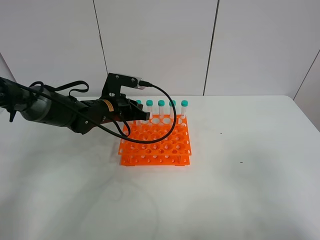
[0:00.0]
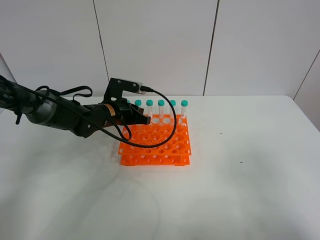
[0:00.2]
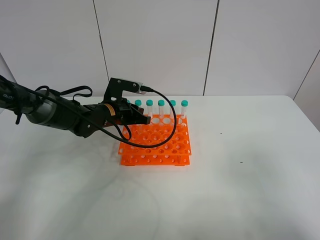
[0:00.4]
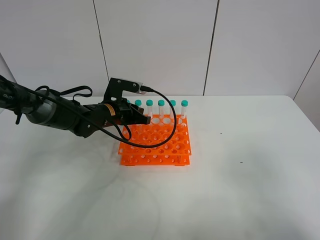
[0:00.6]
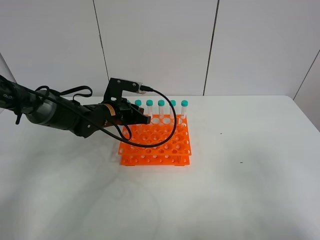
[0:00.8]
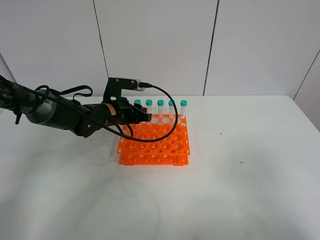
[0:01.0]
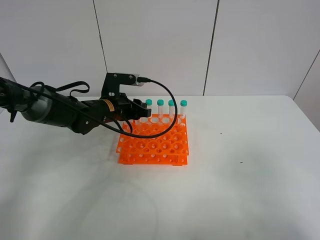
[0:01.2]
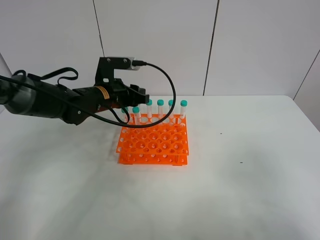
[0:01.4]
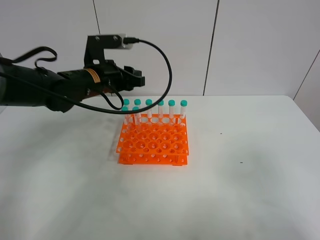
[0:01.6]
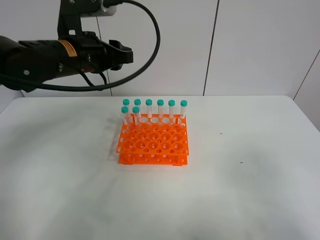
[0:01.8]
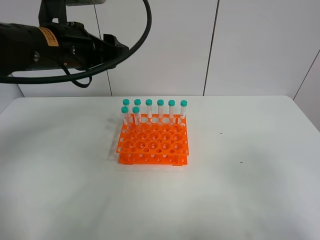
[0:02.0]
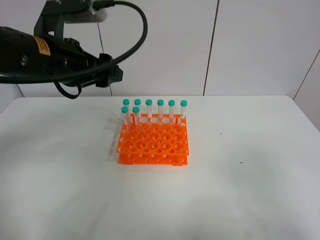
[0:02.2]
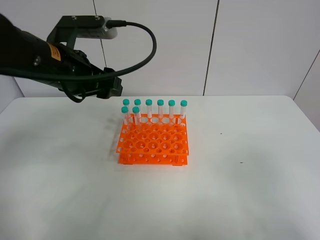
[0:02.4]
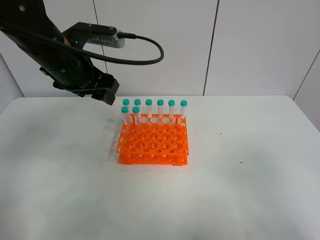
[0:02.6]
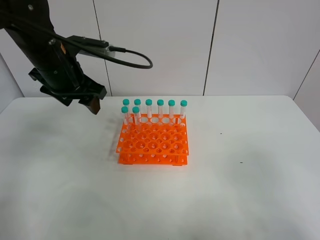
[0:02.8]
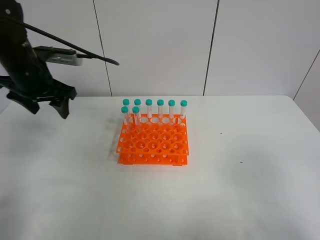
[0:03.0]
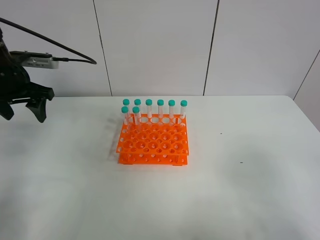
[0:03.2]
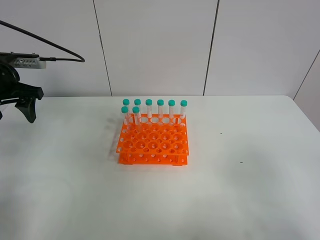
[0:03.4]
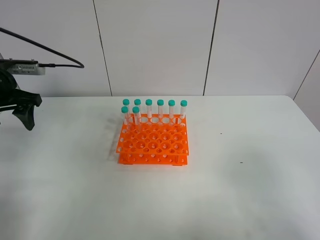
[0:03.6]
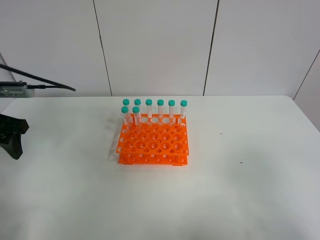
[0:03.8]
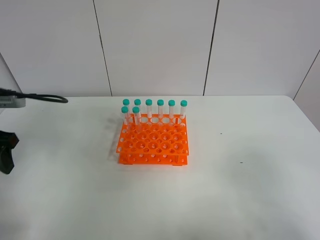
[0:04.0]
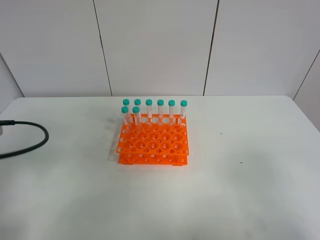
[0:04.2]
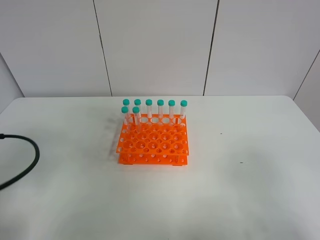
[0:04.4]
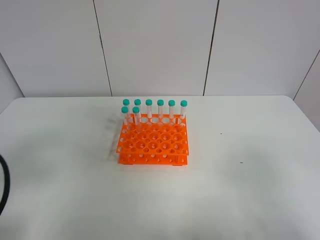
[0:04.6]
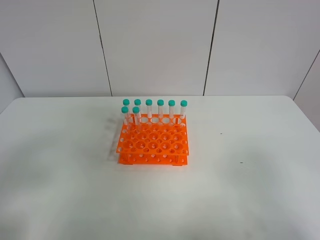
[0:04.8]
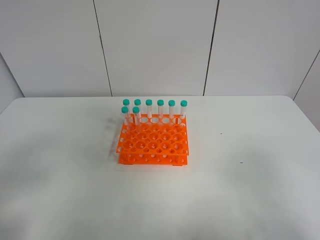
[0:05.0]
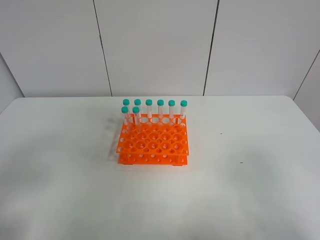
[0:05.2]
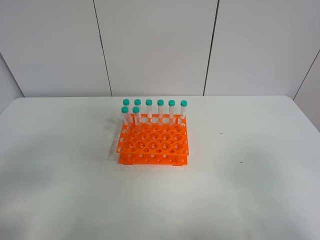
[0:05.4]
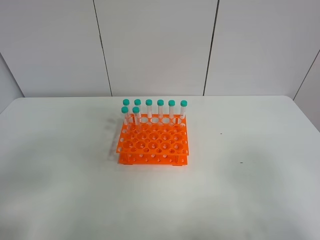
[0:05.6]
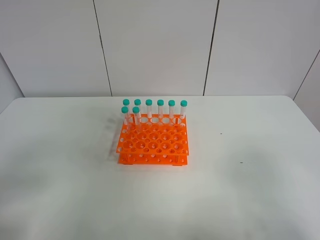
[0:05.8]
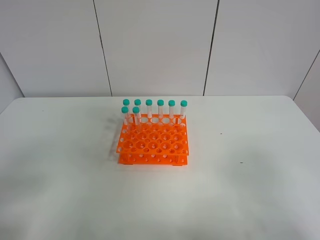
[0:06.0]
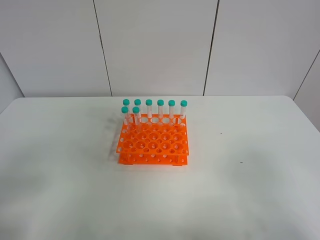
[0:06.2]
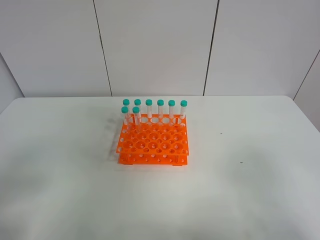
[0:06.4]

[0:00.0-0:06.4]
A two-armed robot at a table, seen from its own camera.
Task of the whole recording: Put the test tube on the table back onto the test tube rack.
0:00.0 to 0:01.6: The left gripper is displaced upward by approximately 10 cm, and opens its fingers.
0:01.6 to 0:03.2: The left gripper heads to the left, covering some 15 cm, and opens up.
0:03.2 to 0:04.8: The left gripper goes approximately 30 cm backward.

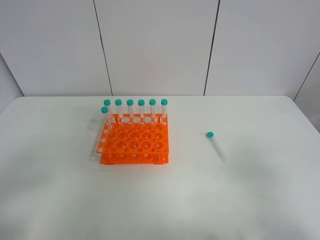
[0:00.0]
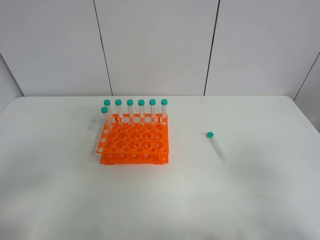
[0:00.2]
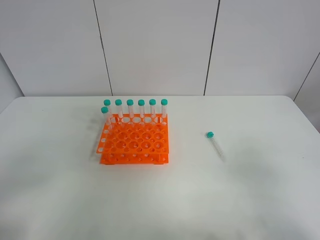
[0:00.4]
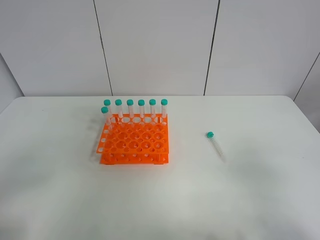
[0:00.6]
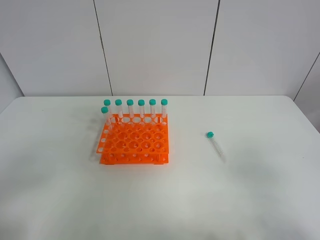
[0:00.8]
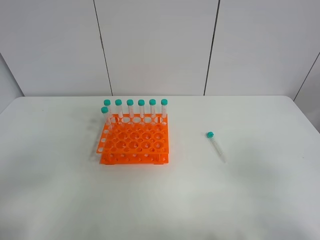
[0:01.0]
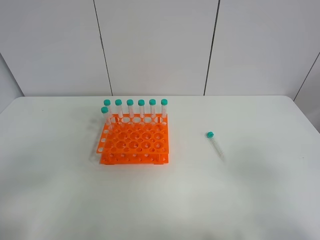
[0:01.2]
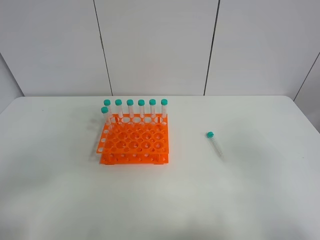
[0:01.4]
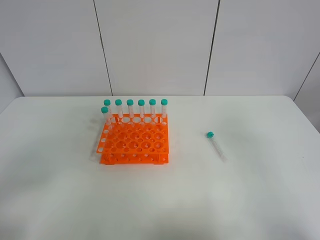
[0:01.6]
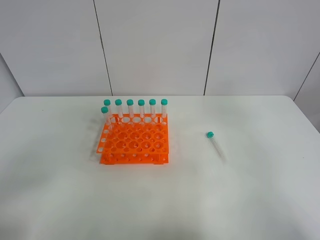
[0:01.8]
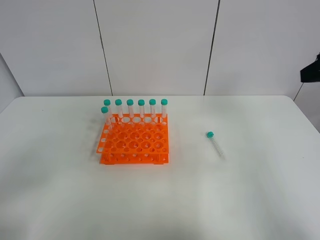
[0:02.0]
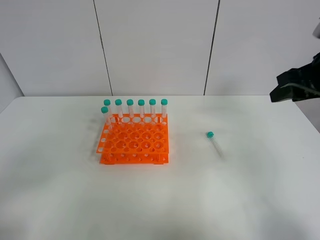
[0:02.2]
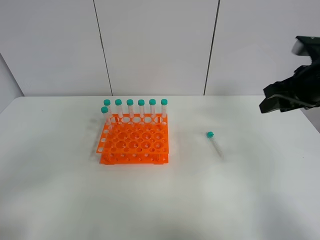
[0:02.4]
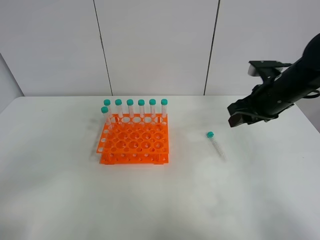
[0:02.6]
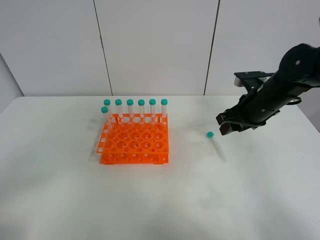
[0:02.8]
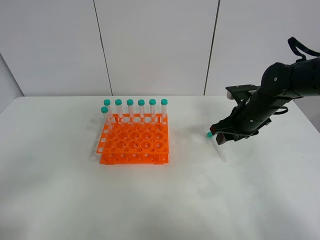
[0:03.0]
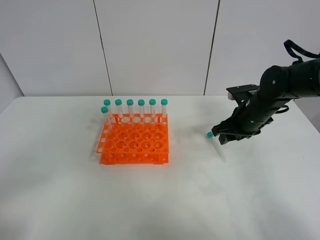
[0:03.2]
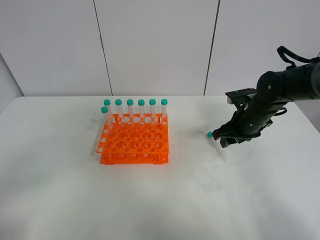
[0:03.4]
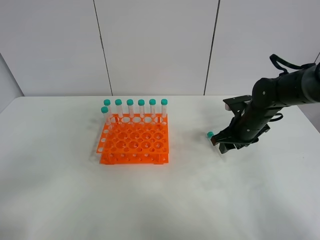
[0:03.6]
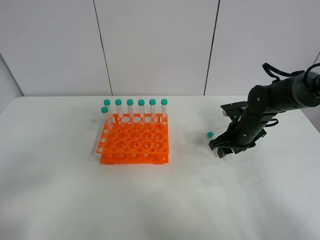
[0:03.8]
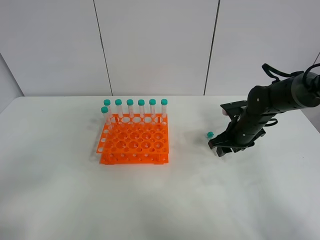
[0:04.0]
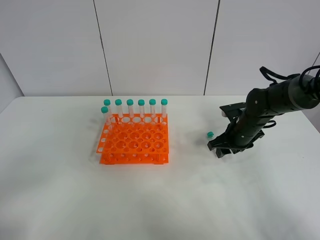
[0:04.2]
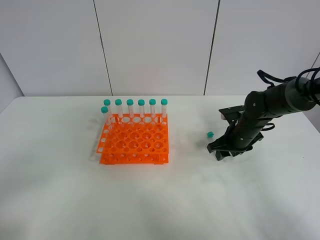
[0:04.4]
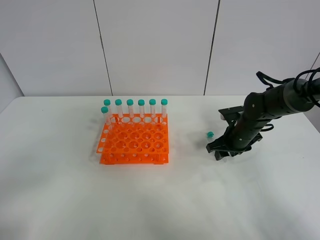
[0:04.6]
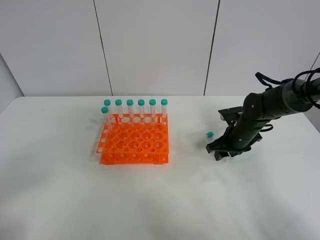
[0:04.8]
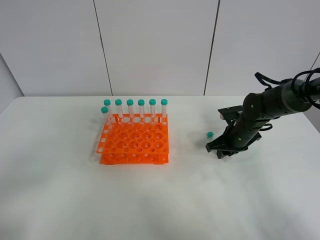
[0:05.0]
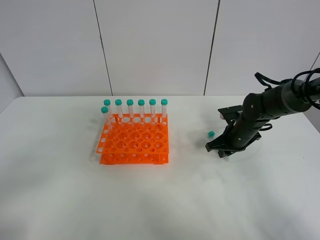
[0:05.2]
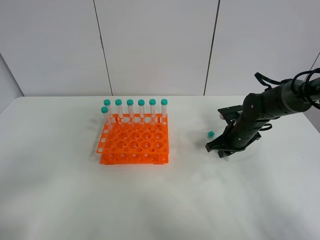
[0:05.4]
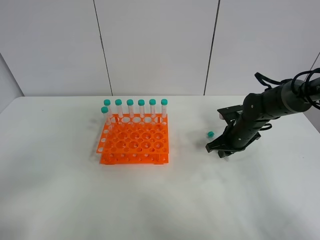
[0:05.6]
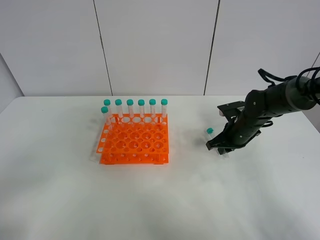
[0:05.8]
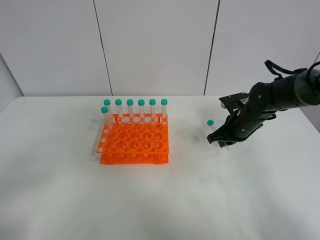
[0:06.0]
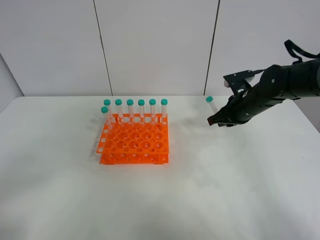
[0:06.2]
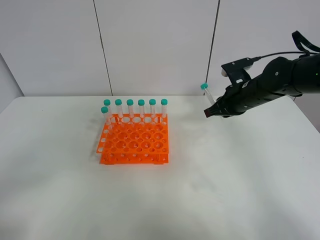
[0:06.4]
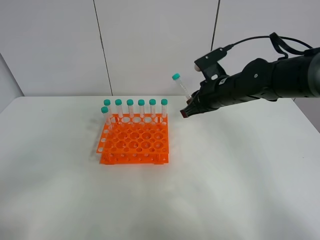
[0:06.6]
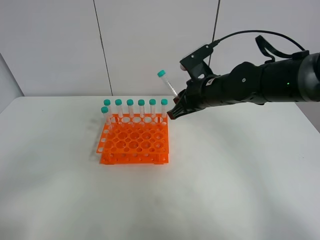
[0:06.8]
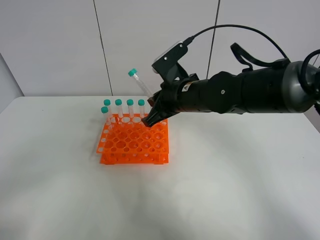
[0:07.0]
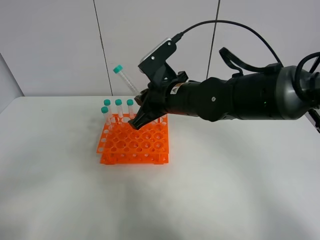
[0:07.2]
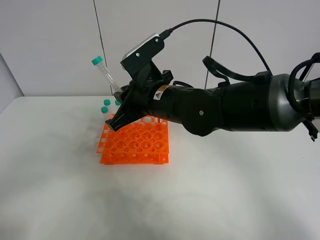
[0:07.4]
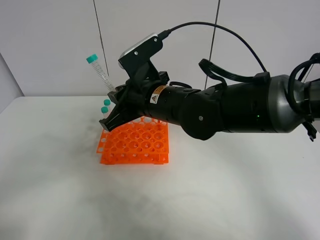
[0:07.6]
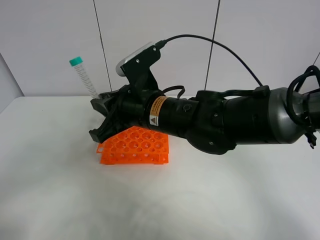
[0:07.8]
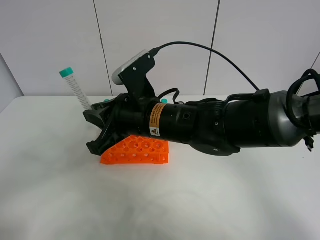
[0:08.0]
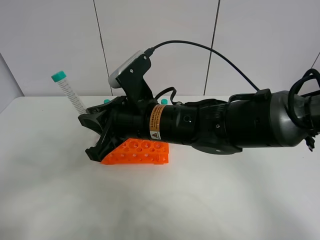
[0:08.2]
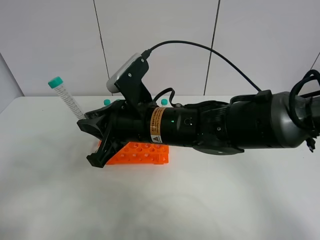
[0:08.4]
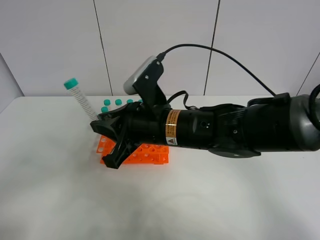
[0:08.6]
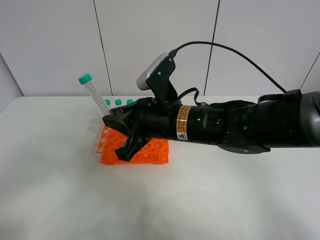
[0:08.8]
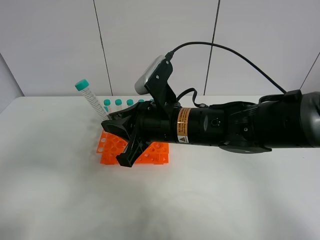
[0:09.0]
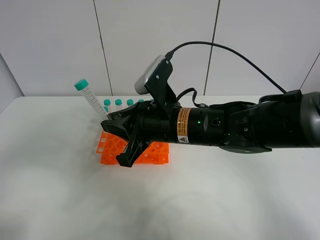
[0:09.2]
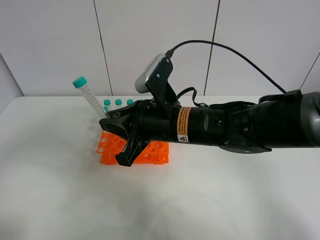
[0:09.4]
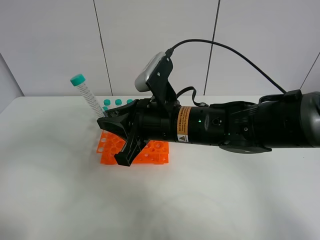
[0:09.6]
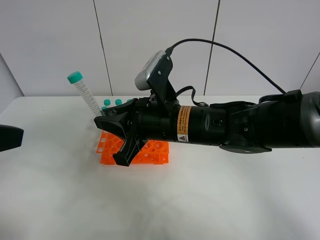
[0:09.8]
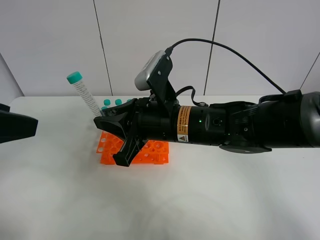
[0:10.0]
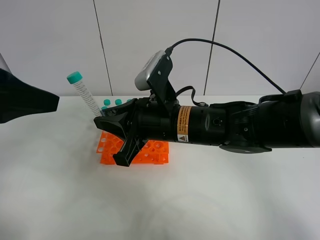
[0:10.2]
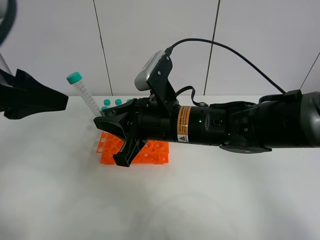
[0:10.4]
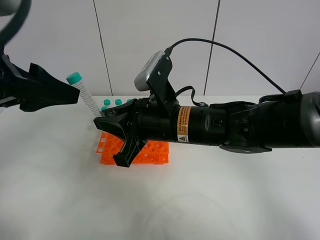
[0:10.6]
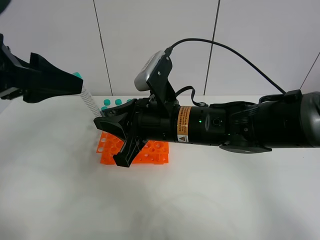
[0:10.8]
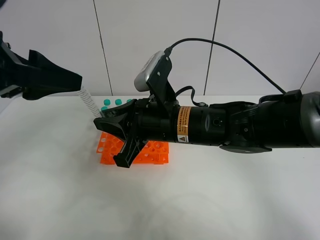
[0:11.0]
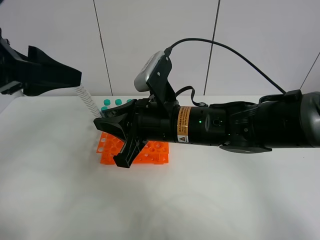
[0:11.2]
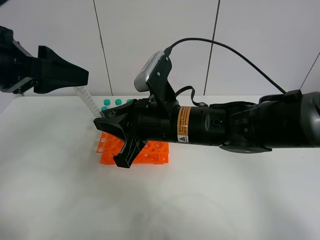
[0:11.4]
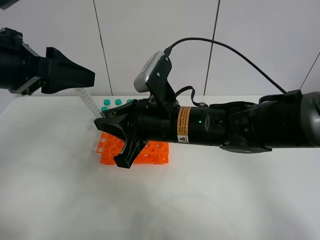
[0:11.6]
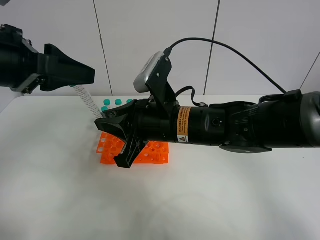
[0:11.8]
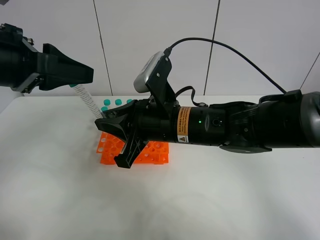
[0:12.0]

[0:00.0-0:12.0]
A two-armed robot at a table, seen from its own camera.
Task of the whole recording: Put the test tube on the table back onto the test tube rack.
Step, 0:00.0 to 0:06.2: Pick up the test tube with the right gripper.
0:01.6 to 0:03.0: The right gripper travels forward and downward by roughly 35 cm.
0:03.0 to 0:04.4: The right gripper heads downward, covering some 5 cm.
0:04.4 to 0:06.0: The right gripper closes up.
0:06.0 to 0:07.6: The right gripper moves to the left and upward, roughly 25 cm.
0:07.6 to 0:09.0: The left gripper shifts by approximately 5 cm, while the right gripper ends up some 5 cm from where it was.
0:09.0 to 0:10.4: The left gripper is displaced forward by approximately 15 cm.
0:10.4 to 0:12.0: The left gripper closes its fingers.

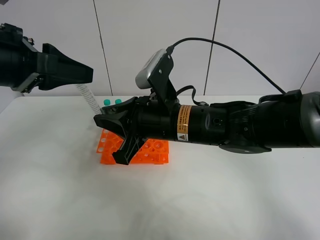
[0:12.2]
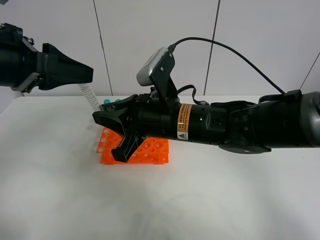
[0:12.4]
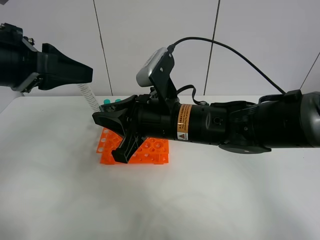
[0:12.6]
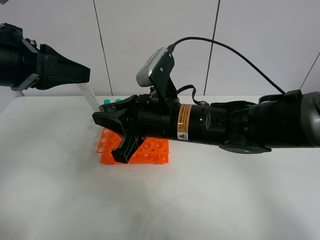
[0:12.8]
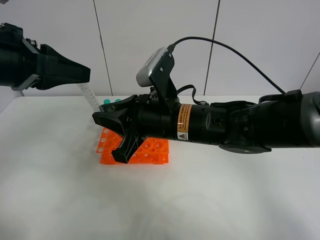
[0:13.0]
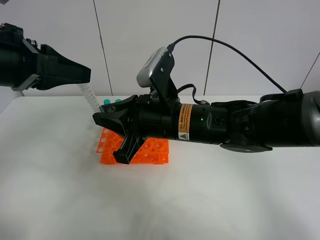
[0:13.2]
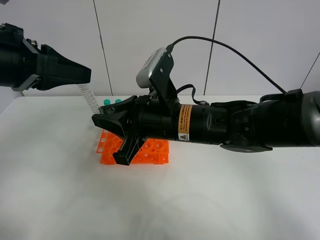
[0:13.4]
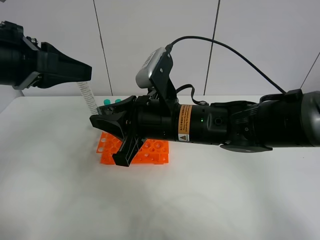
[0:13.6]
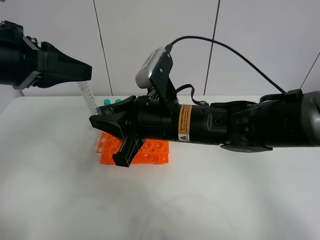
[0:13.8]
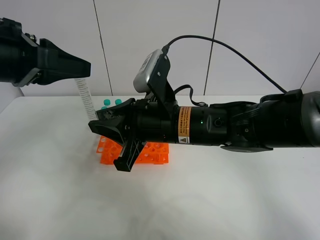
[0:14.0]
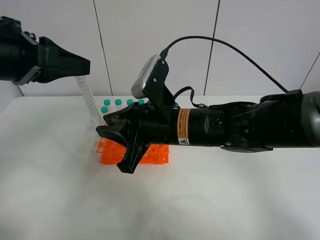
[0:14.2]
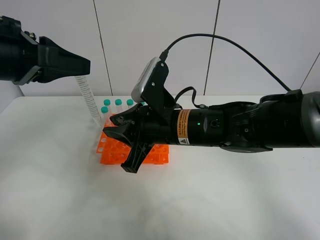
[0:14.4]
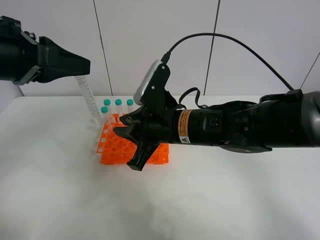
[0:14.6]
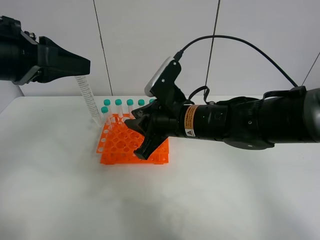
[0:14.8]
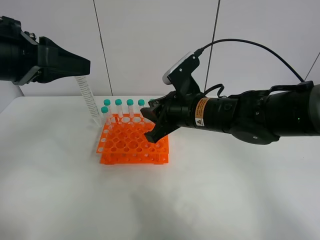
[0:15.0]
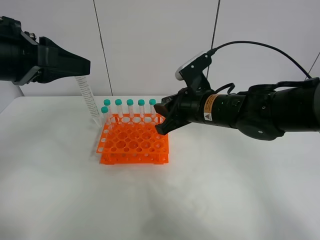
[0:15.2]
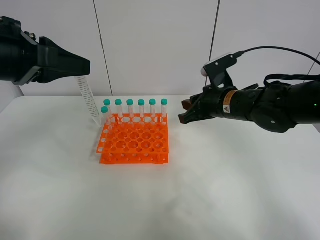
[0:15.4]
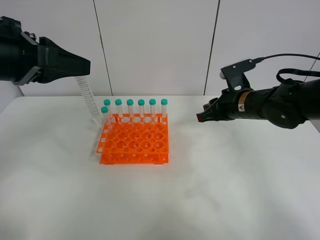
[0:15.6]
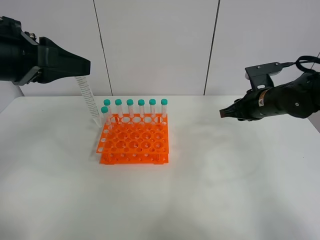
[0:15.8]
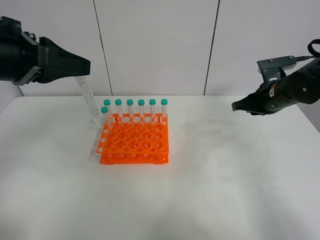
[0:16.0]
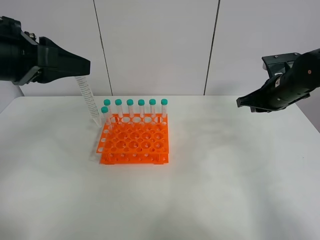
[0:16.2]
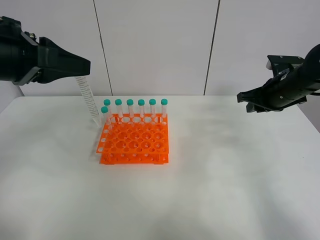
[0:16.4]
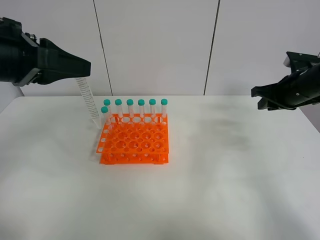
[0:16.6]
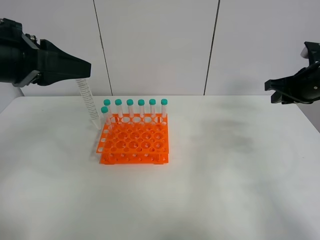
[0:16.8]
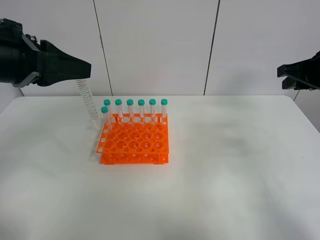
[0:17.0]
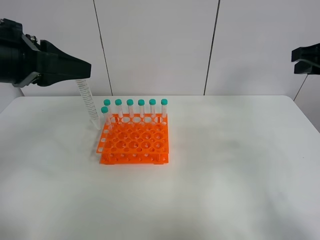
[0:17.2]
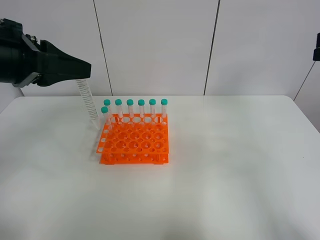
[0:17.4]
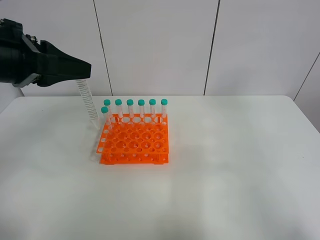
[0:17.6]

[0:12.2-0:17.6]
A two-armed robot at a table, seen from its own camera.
Task of the whole recording: Put the test tube on the table back onto the test tube rack.
Step, 0:12.2 to 0:14.8: Move the test tube from the right gripper to the left gripper.
0:12.2 to 0:13.6: The two grippers keep their place.
0:13.6 to 0:15.0: The right gripper shifts about 10 cm to the right and forward.
0:15.0 to 0:16.2: The right gripper is displaced to the right by some 20 cm.
0:16.2 to 0:17.6: The right gripper shifts some 25 cm backward and upward.
